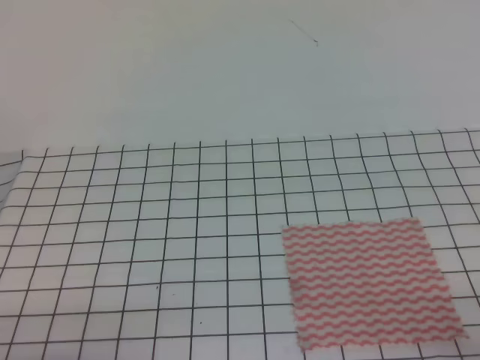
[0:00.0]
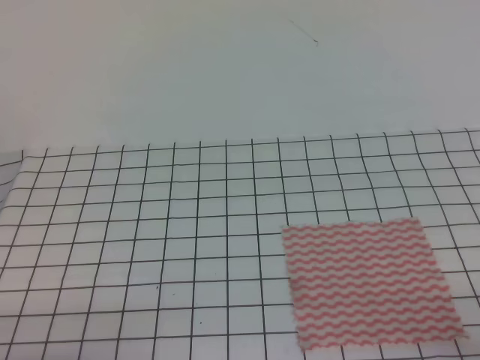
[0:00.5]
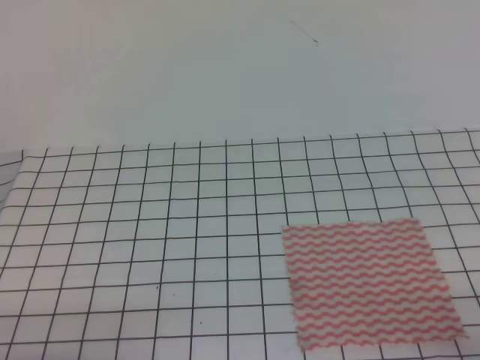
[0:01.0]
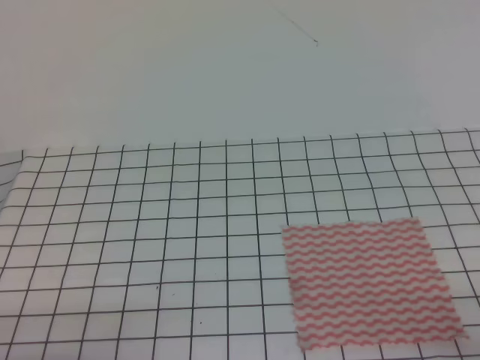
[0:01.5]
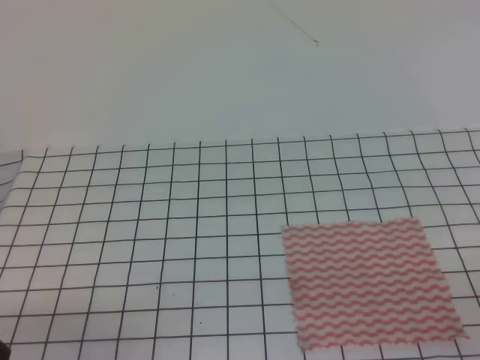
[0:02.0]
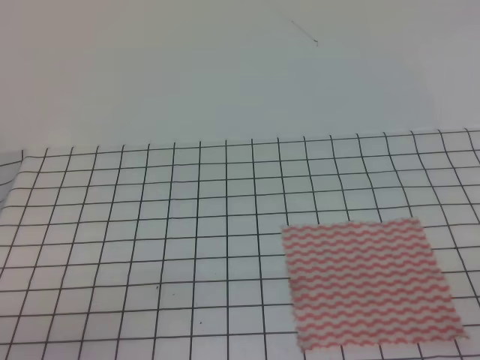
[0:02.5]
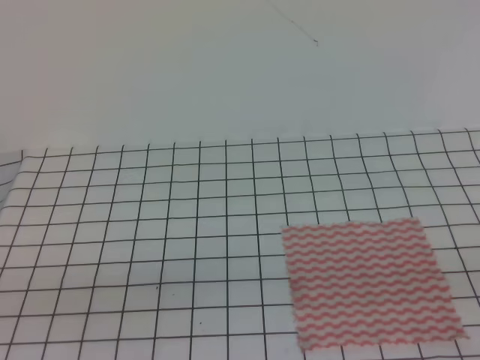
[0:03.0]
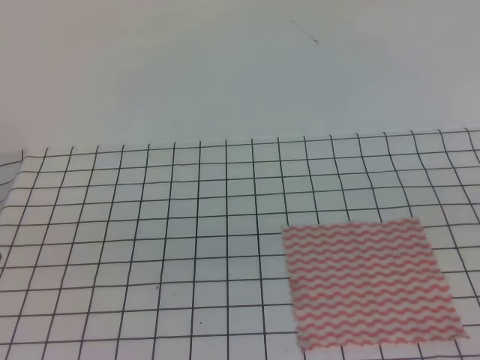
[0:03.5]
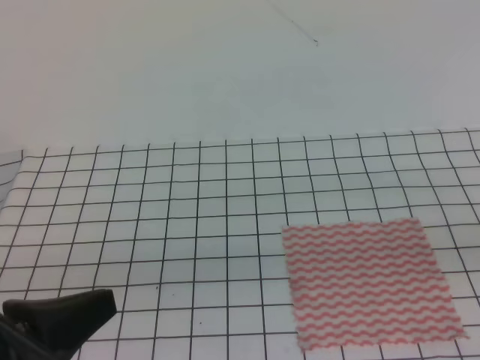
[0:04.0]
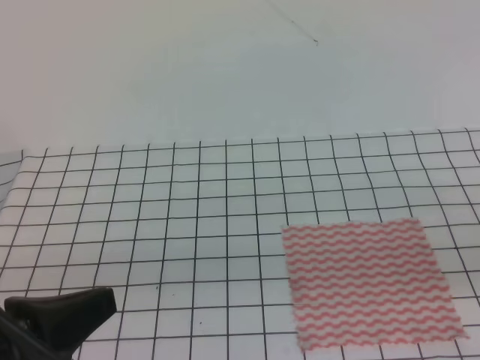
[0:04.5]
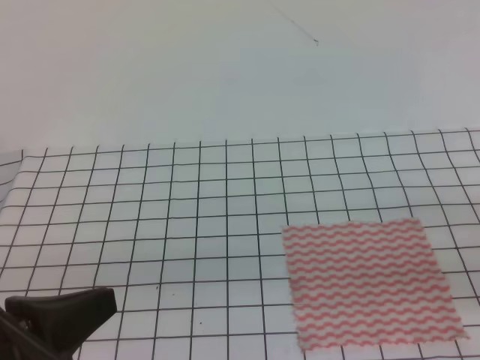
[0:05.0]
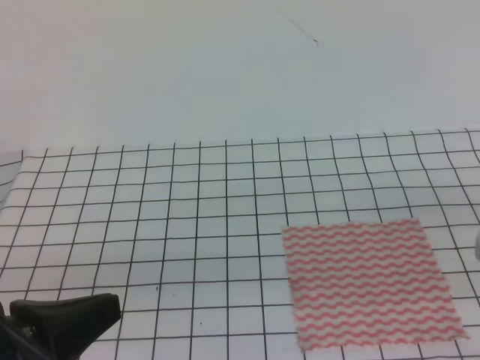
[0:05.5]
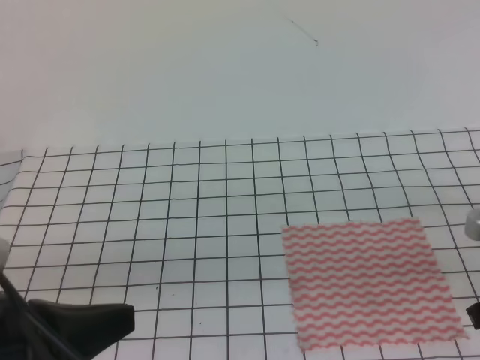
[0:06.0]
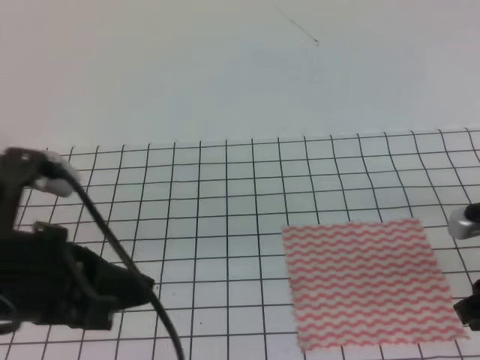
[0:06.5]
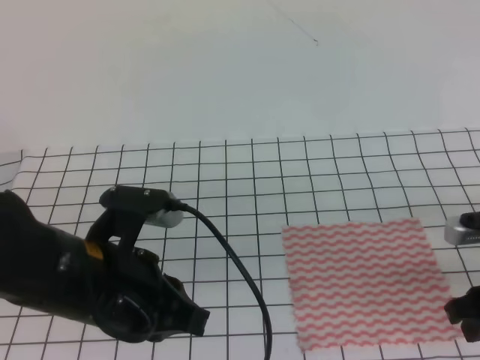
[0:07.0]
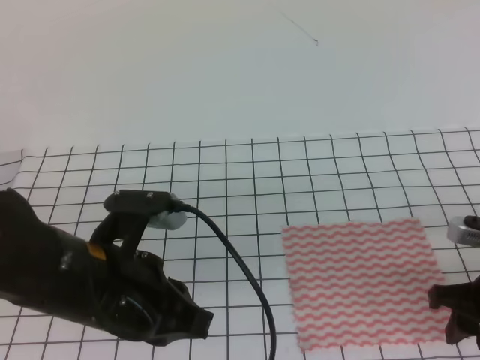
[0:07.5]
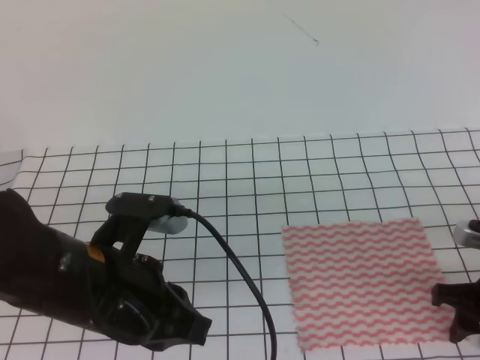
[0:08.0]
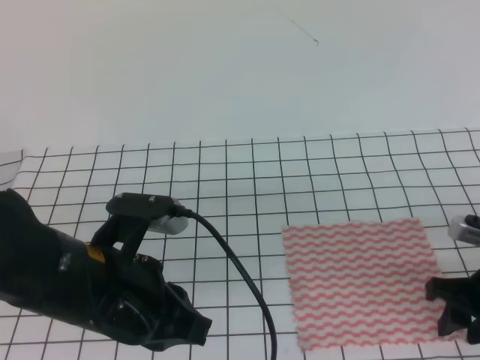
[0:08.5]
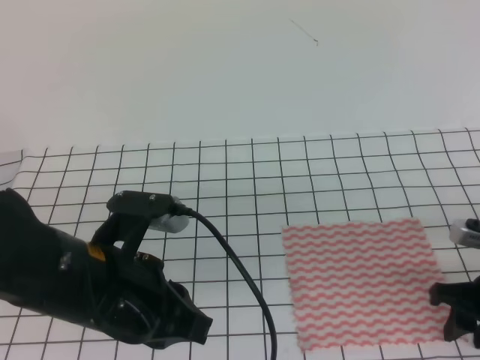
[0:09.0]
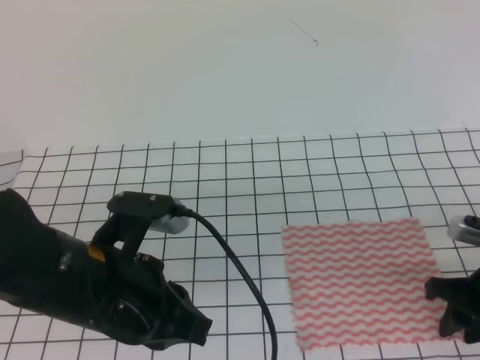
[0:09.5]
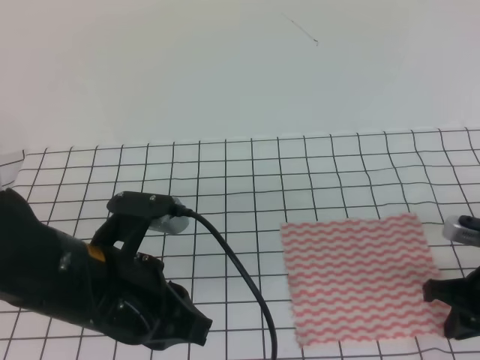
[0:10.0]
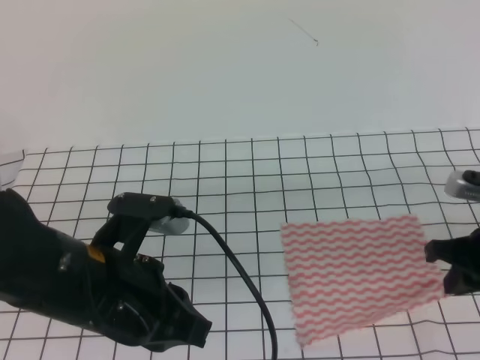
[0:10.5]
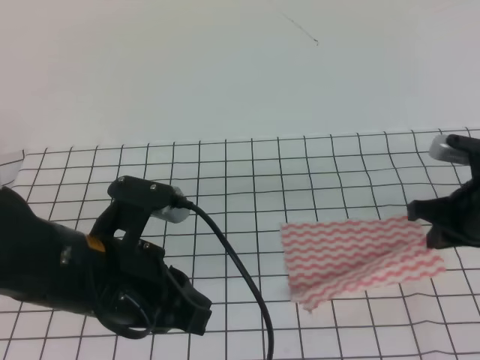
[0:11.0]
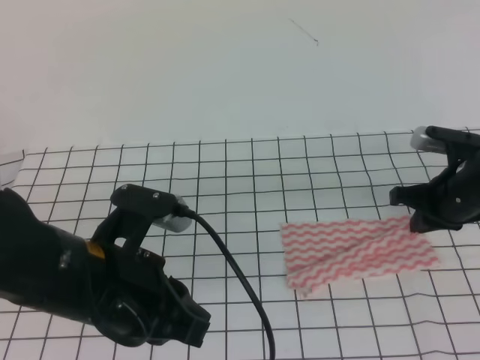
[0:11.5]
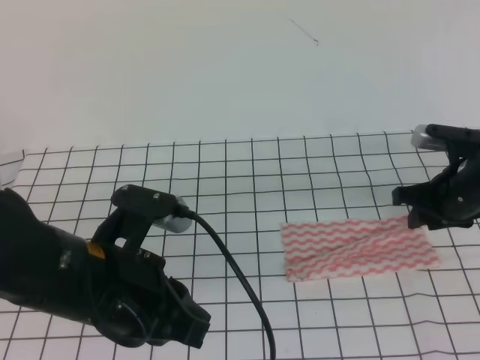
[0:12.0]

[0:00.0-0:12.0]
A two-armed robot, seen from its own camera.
0:02.0 to 0:04.0: The left gripper shifts roughly 10 cm upward.
0:06.0 to 0:08.0: The right gripper heads downward, covering approximately 10 cm, and opens. Meanwhile the left gripper heads to the right and forward, covering about 10 cm.
0:08.0 to 0:10.0: The right gripper closes.
0:10.0 to 0:12.0: The right gripper moves forward, roughly 10 cm.

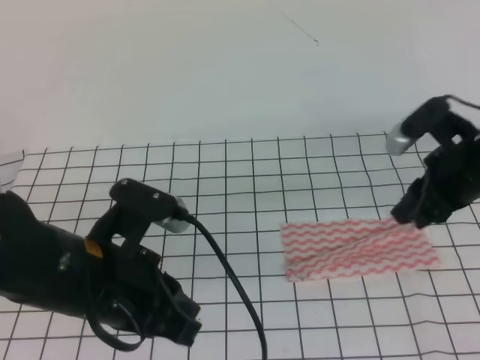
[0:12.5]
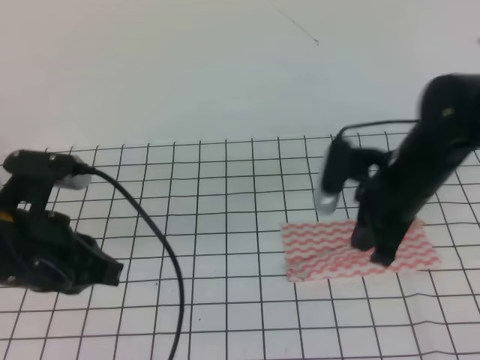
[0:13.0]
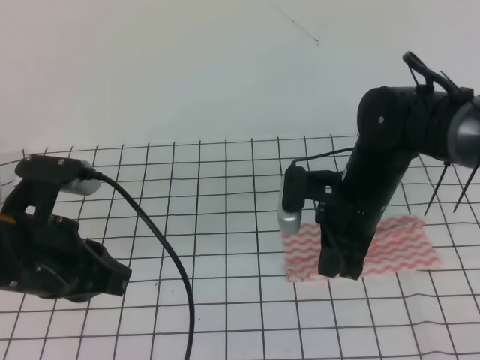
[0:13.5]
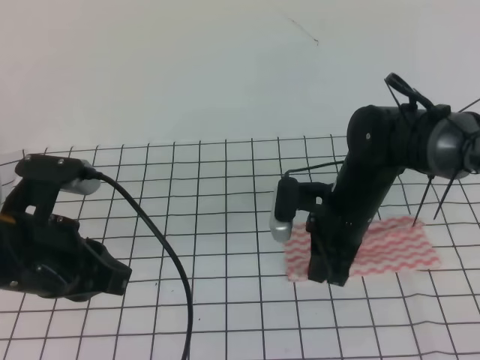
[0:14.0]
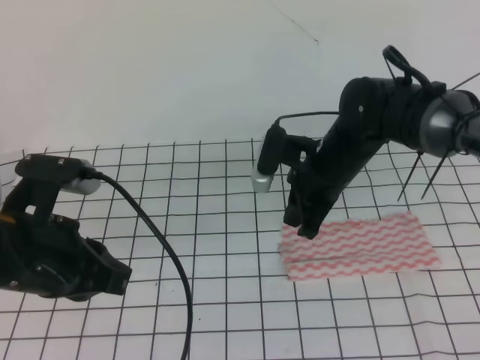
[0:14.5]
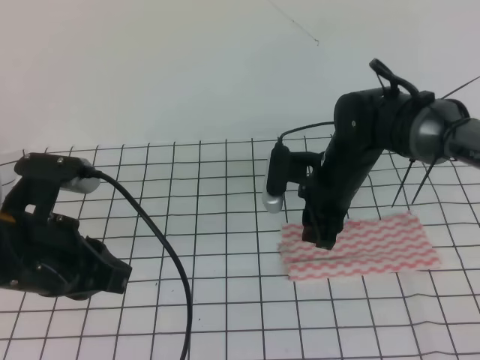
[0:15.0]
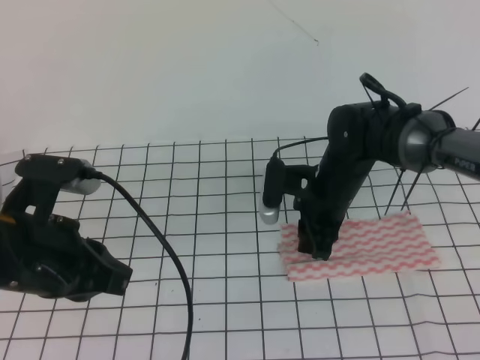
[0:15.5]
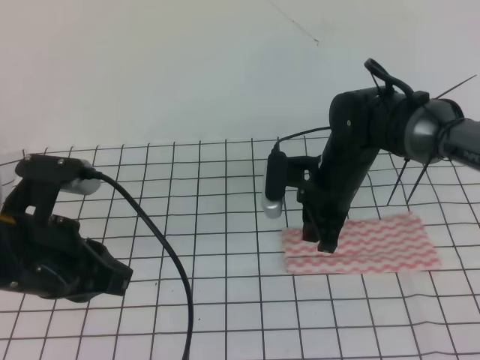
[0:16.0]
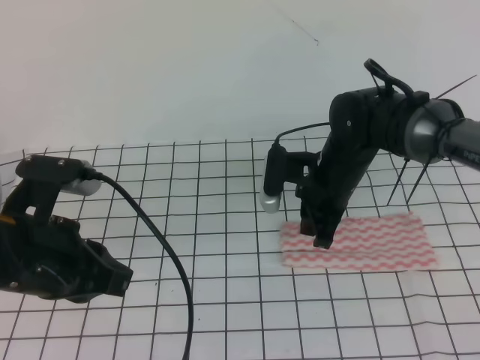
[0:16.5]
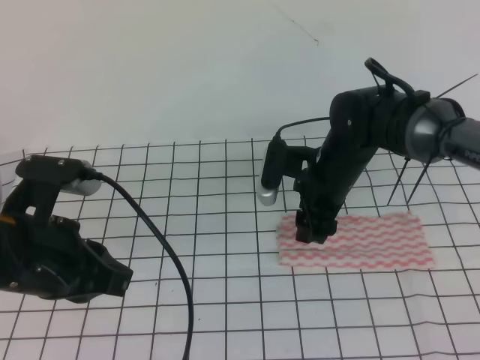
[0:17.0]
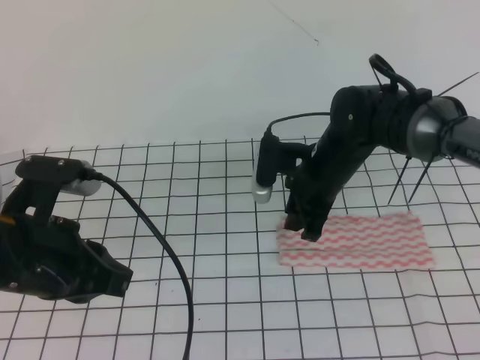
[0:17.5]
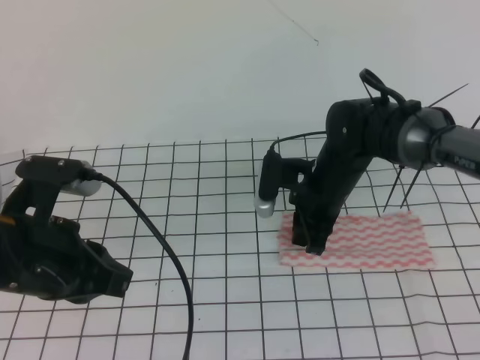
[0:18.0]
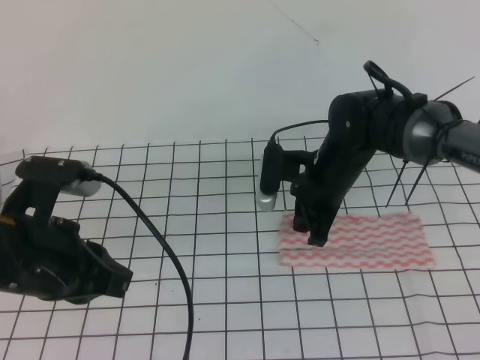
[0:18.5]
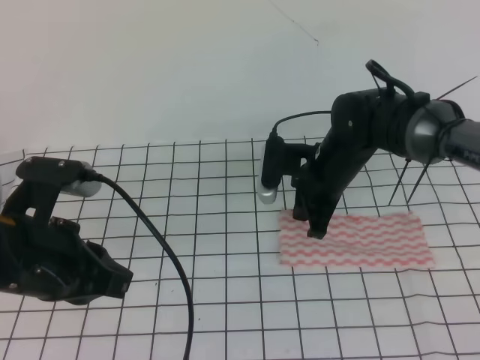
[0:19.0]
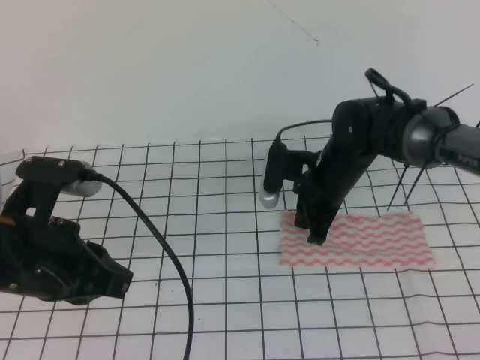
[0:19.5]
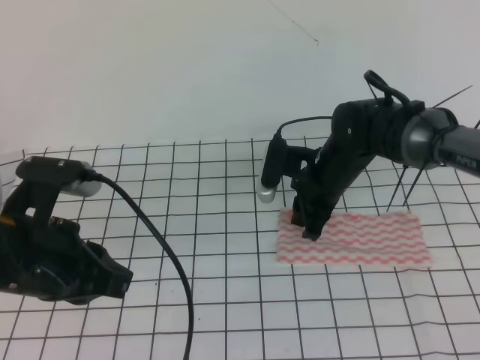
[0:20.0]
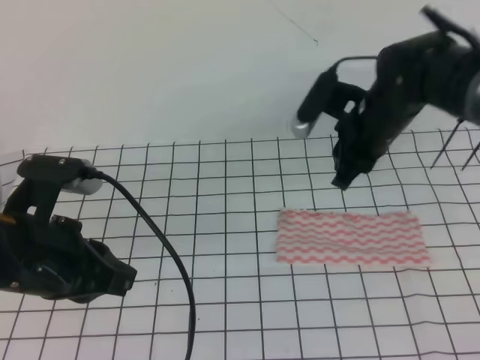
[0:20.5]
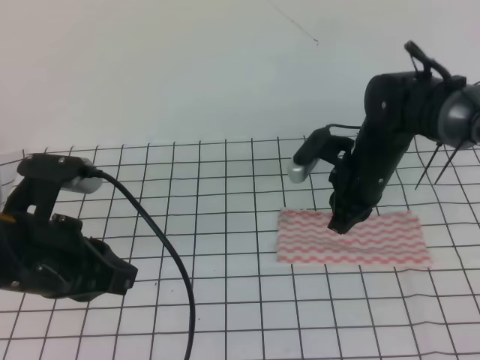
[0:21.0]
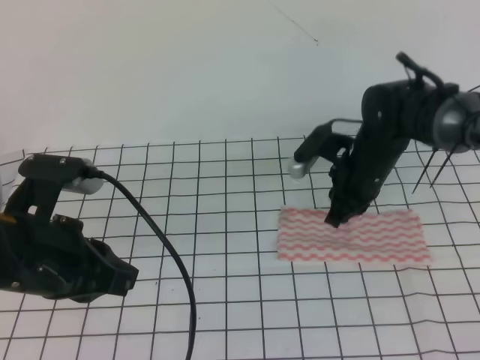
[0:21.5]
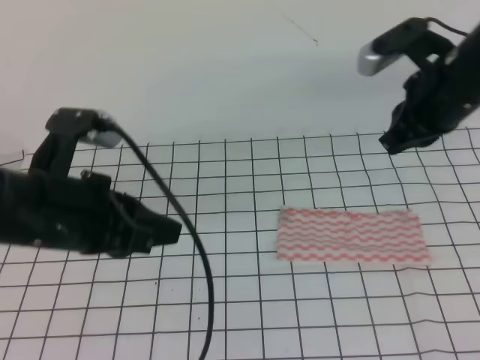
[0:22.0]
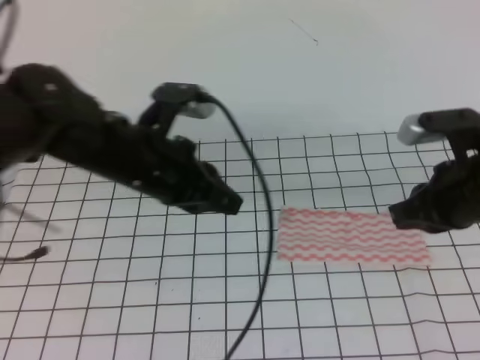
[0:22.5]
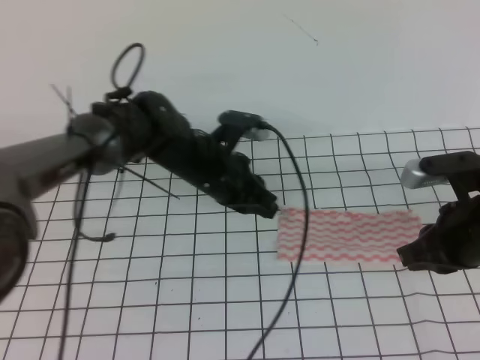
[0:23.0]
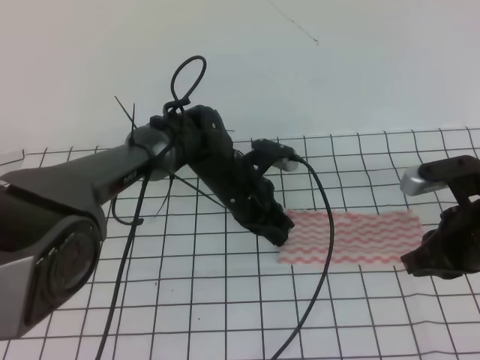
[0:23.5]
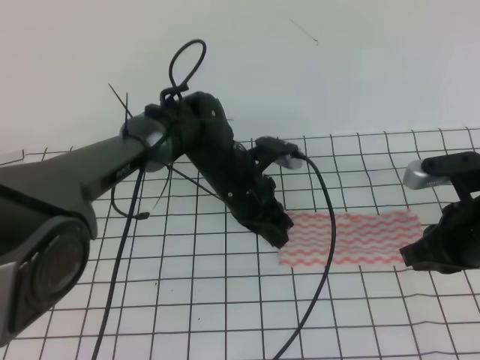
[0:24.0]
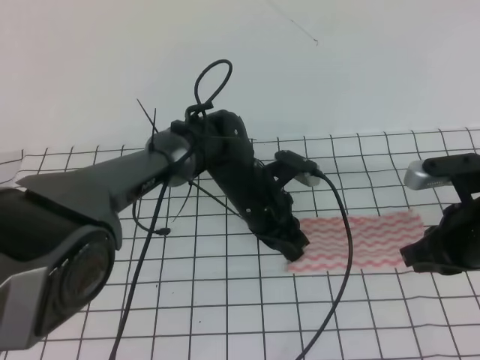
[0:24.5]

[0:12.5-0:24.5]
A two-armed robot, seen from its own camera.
0:12.5 to 0:14.5: The right gripper travels to the left by roughly 15 cm, and closes. Meanwhile the left gripper is displaced to the left by about 5 cm.
0:14.5 to 0:16.5: The right gripper opens, then closes once more.
0:16.5 to 0:18.5: The right gripper opens, then closes again.
0:18.5 to 0:20.5: The right gripper moves roughly 5 cm, and opens up.
0:20.5 to 0:22.5: The left gripper heads forward and to the right, covering about 15 cm. The right gripper travels backward and to the right by about 15 cm, moves about 10 cm upward and comes back, and closes its fingers.
0:22.5 to 0:24.5: The right gripper shifts by some 5 cm; the left gripper goes roughly 20 cm downward, to the right and forward.

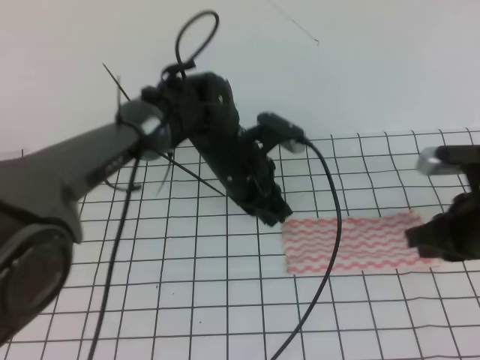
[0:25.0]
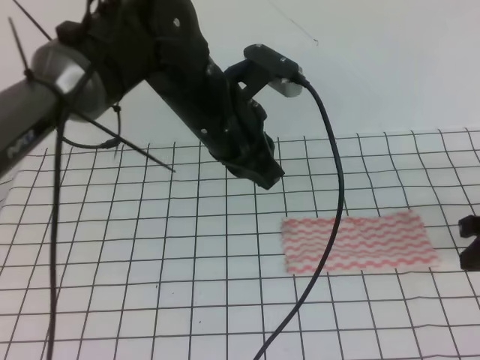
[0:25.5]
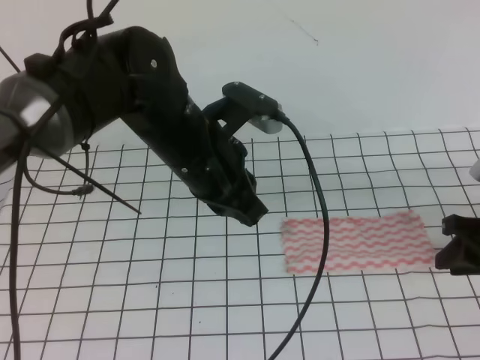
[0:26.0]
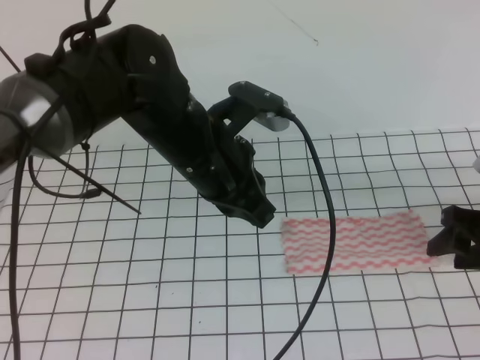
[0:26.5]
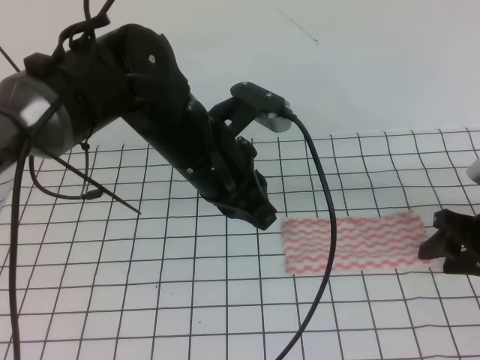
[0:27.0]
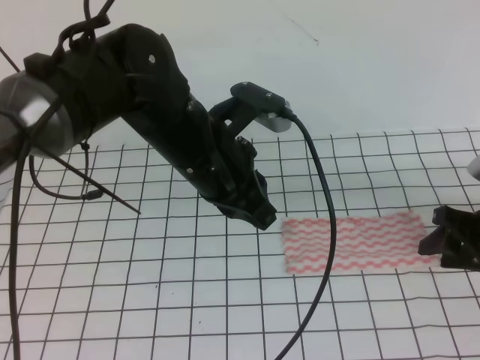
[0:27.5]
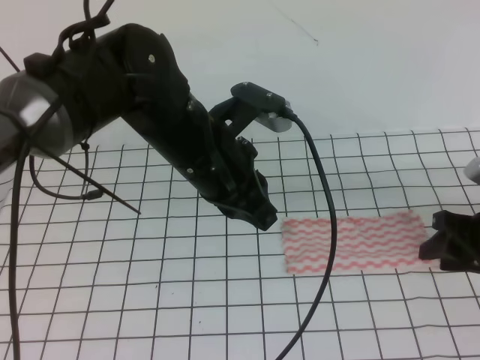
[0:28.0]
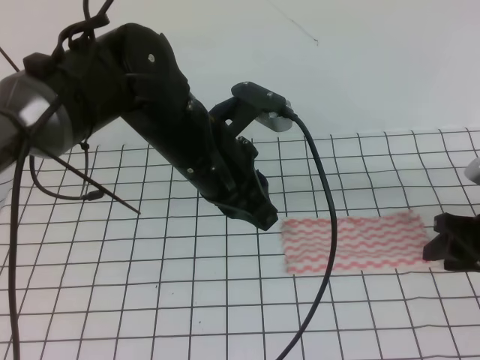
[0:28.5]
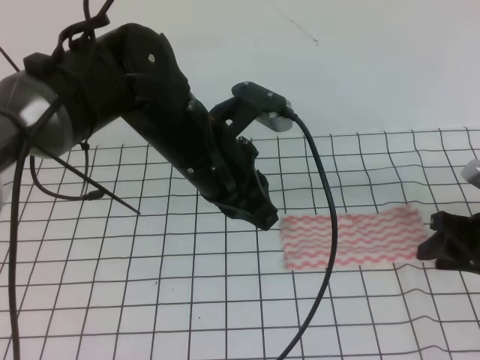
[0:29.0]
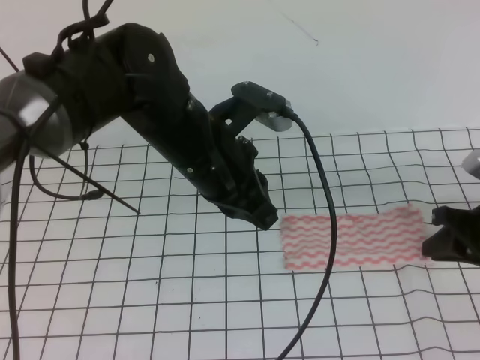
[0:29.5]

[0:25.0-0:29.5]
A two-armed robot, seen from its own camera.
0:25.0 to 0:27.0: The left gripper goes roughly 10 cm upward and backward; the right gripper shifts some 5 cm downward, and opens its fingers.
0:27.0 to 0:29.5: The right gripper closes its fingers.
